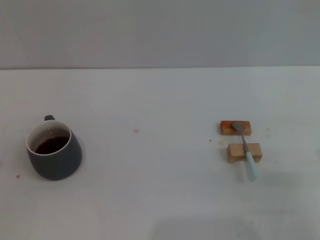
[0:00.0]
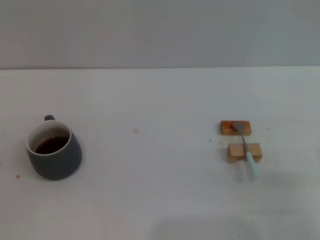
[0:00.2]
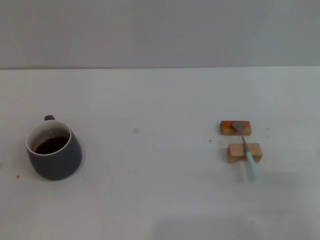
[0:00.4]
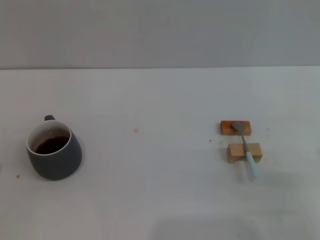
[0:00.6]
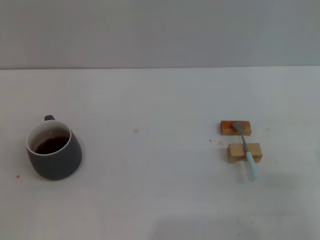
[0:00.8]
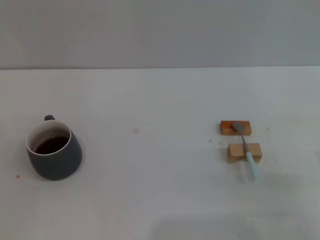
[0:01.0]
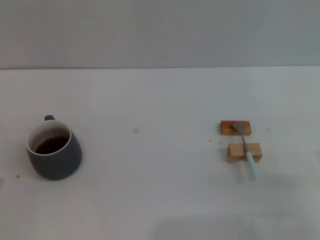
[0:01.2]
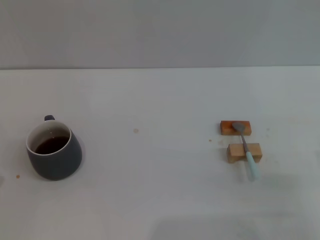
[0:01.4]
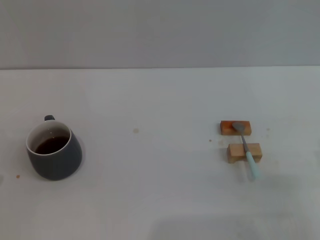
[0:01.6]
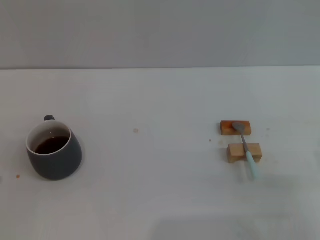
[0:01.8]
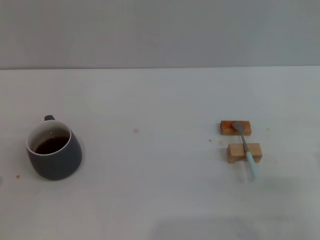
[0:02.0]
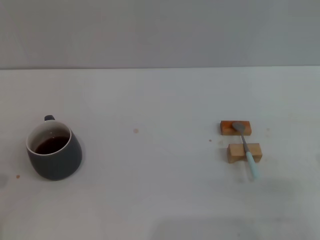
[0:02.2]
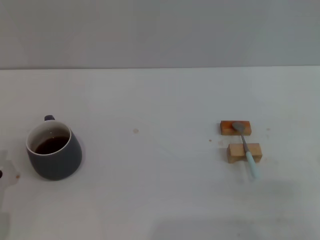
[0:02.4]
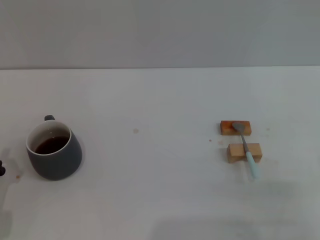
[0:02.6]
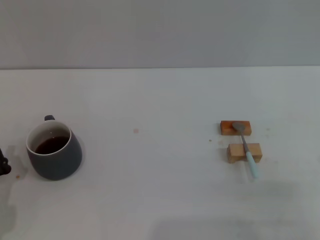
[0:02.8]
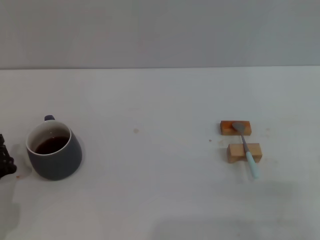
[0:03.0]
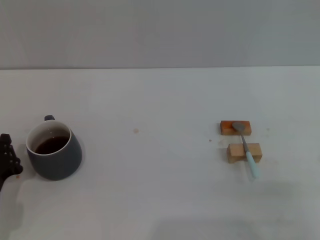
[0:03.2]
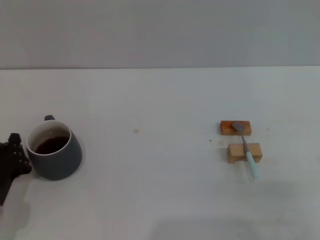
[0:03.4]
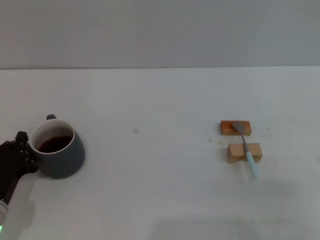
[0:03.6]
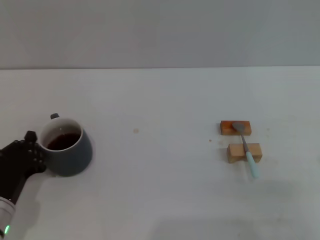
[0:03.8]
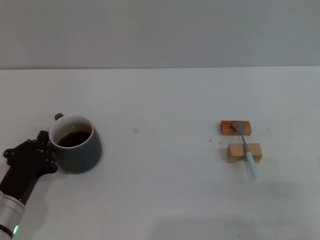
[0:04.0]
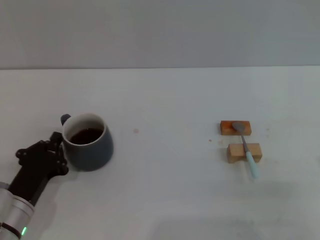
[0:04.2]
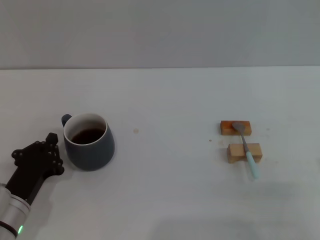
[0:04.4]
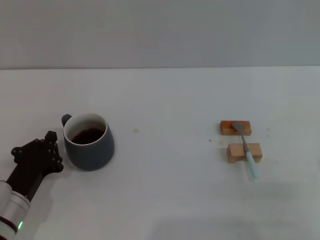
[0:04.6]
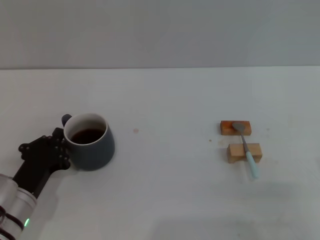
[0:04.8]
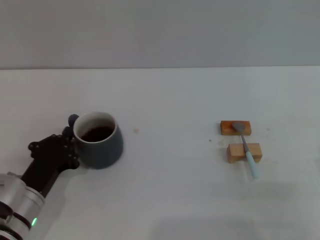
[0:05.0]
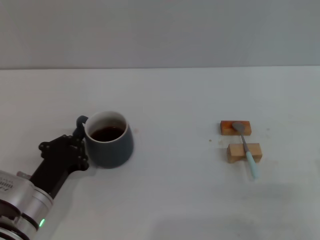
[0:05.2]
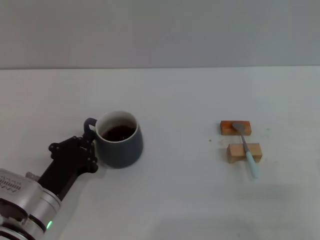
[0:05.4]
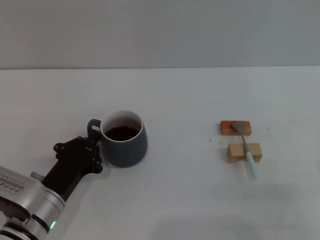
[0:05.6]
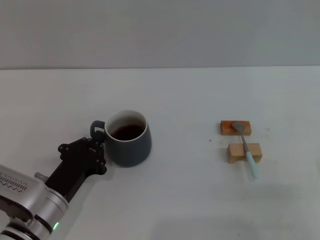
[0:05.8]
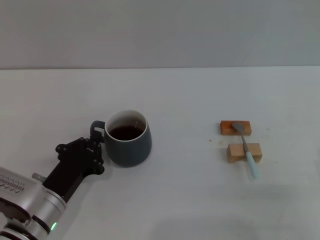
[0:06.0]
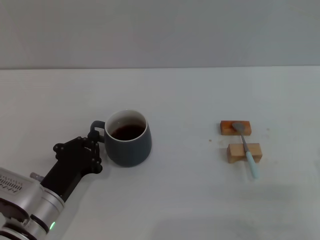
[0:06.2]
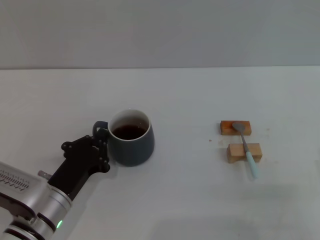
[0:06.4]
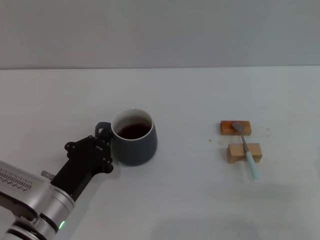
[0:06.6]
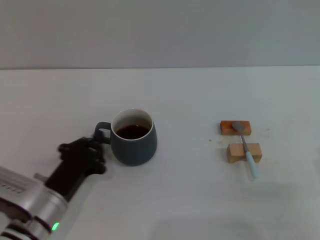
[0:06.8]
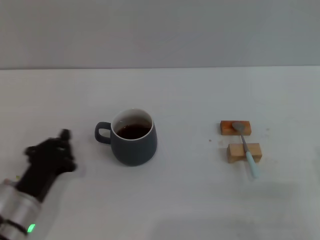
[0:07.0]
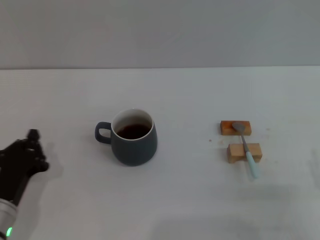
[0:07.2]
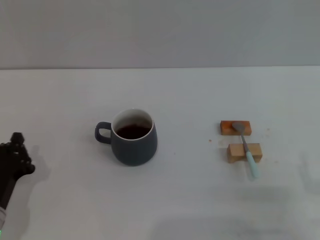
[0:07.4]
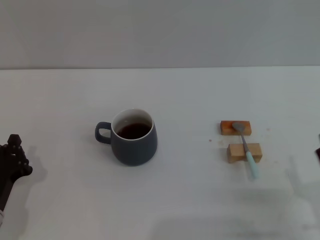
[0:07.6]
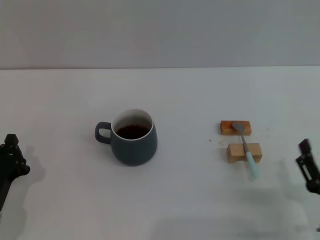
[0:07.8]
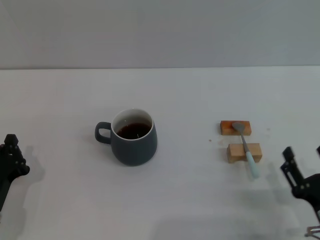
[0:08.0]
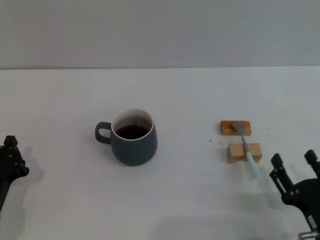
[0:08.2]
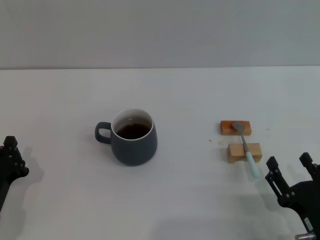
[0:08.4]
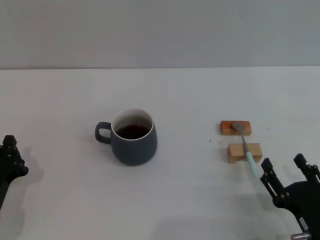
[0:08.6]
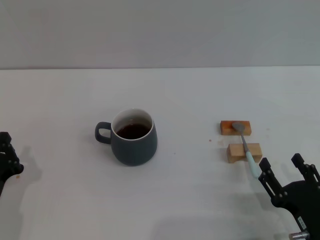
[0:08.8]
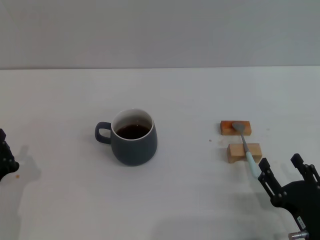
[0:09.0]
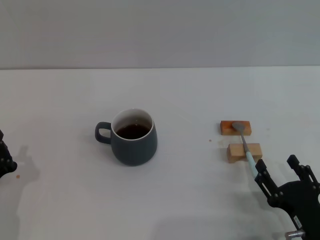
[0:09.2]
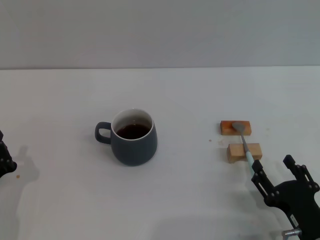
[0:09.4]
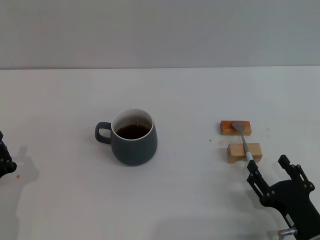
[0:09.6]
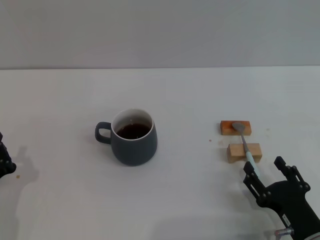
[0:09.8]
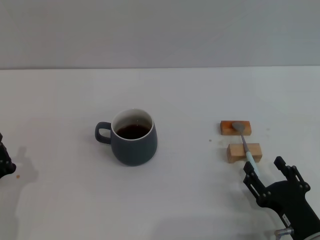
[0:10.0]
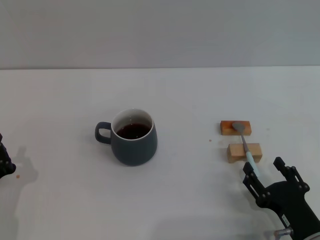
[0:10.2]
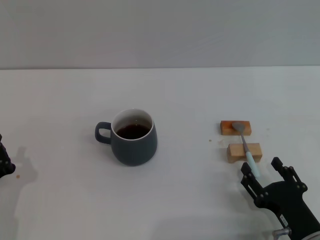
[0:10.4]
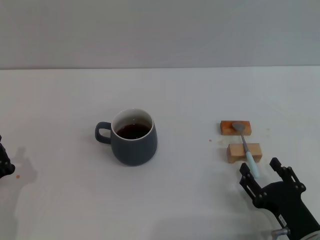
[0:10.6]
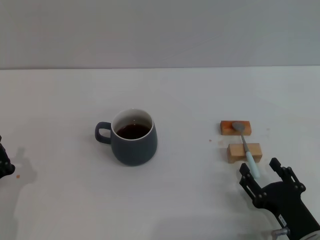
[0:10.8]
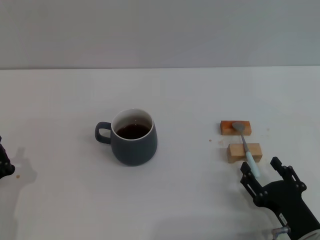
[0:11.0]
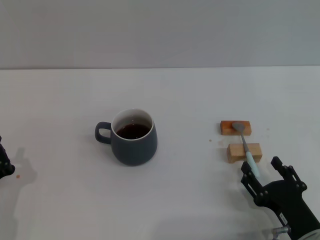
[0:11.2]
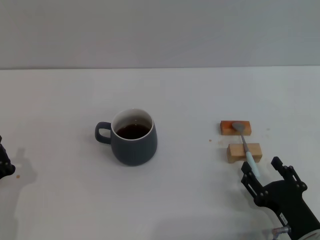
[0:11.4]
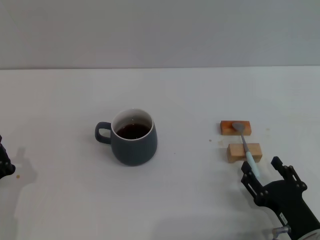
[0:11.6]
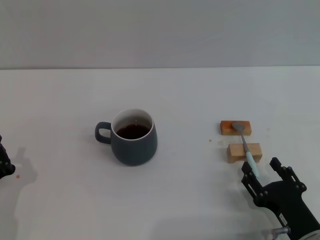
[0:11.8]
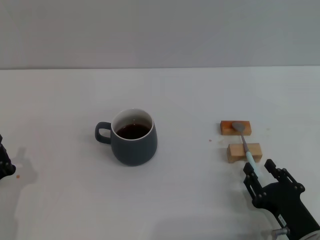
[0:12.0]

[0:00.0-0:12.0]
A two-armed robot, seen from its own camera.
Task of the whole recording: Move the grey cup to the center, lift the blue spoon, stir it three times in the cup, and put the spoon into the cup.
Step, 0:00.0 to 0:06.8: Move the cup with coffee to the center of view with the left gripper.
0:03.0 to 0:04.4: The grippers move only a little.
0:04.4 to 0:06.0: The grippers move only a little.
0:06.0 to 0:07.6: The left gripper heads to the left, covering roughly 5 cm.
0:07.6 to 0:09.0: The grippers move only a little.
0:09.0 to 0:10.4: The grippers stay close to where they were, moving slightly.
0:10.4 to 0:12.0: Neither gripper changes place.

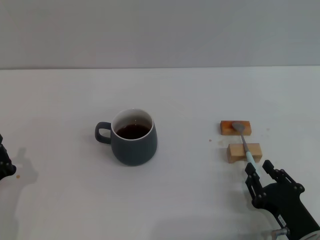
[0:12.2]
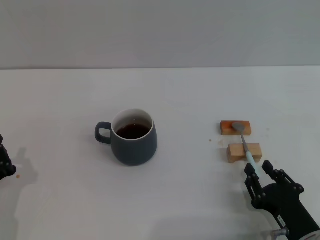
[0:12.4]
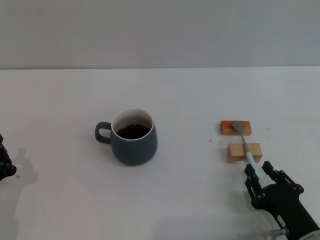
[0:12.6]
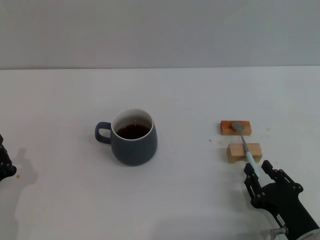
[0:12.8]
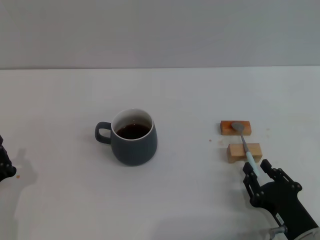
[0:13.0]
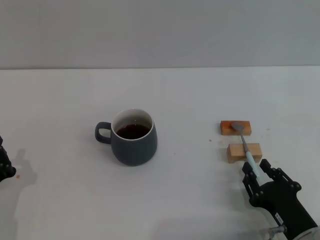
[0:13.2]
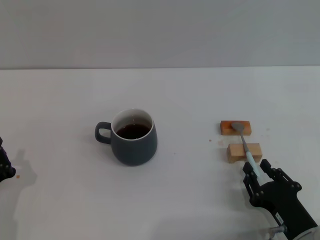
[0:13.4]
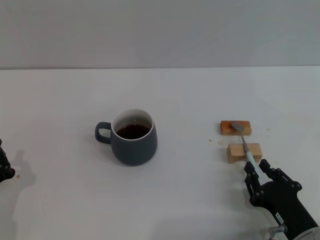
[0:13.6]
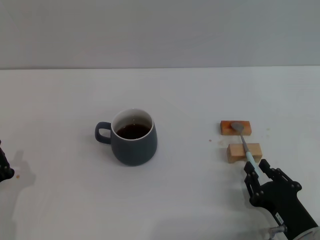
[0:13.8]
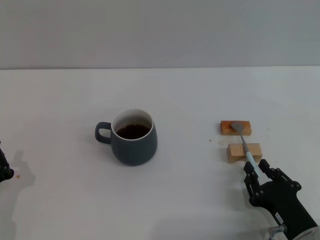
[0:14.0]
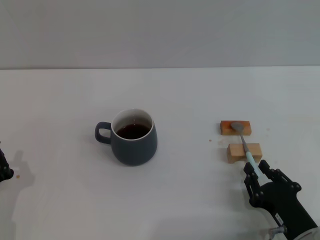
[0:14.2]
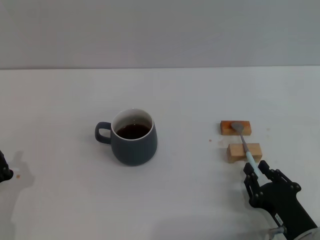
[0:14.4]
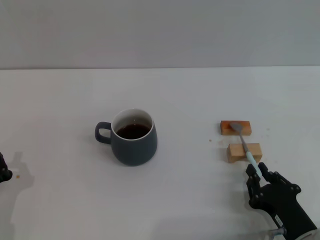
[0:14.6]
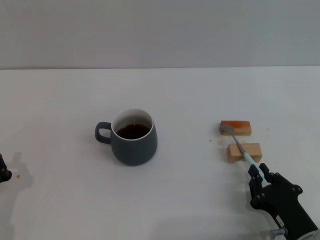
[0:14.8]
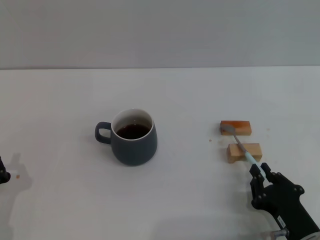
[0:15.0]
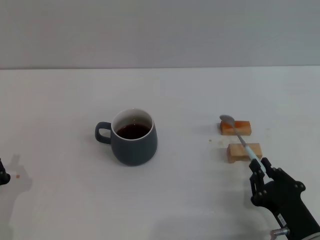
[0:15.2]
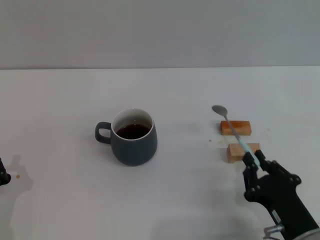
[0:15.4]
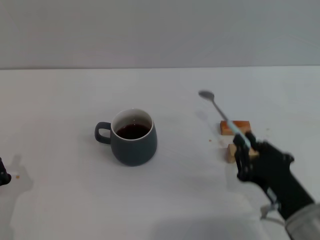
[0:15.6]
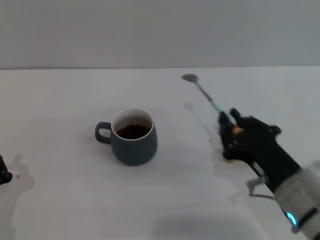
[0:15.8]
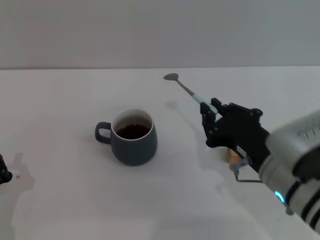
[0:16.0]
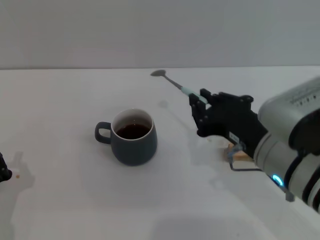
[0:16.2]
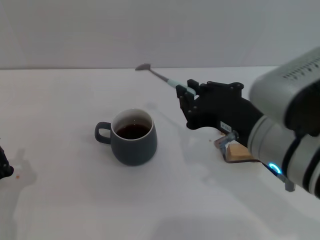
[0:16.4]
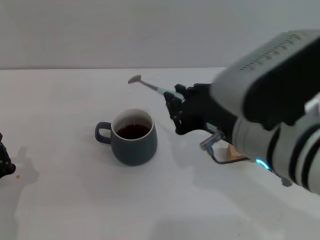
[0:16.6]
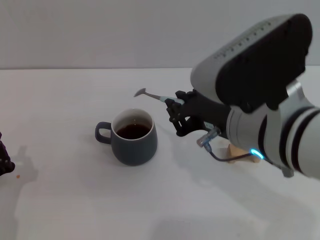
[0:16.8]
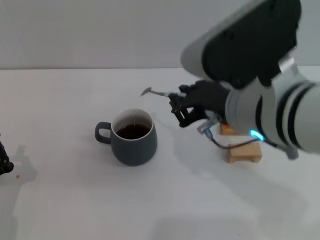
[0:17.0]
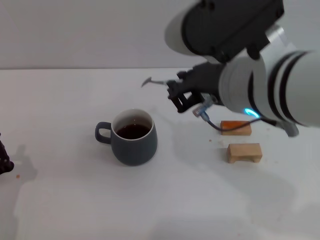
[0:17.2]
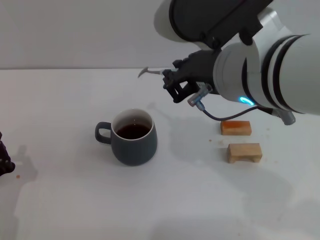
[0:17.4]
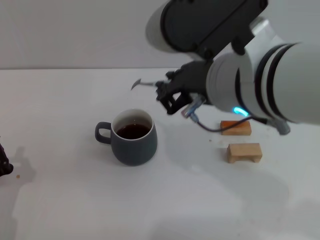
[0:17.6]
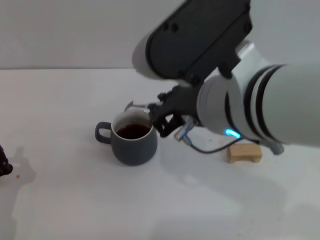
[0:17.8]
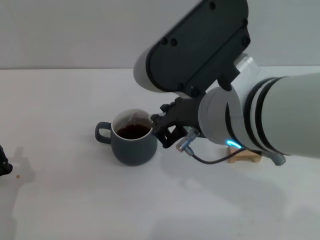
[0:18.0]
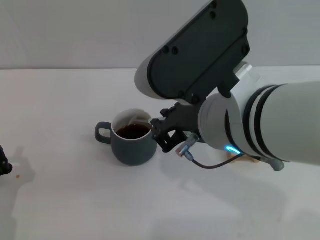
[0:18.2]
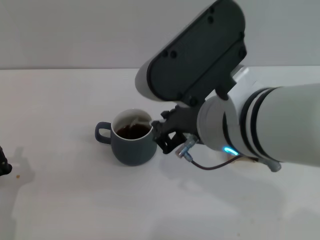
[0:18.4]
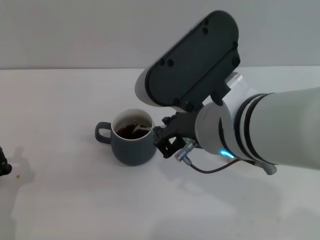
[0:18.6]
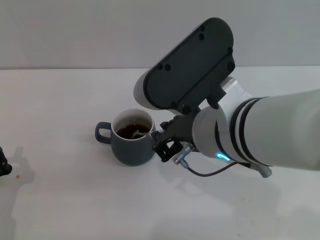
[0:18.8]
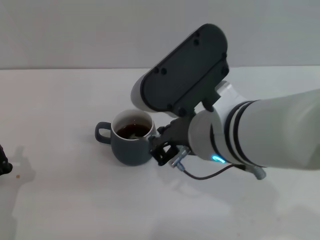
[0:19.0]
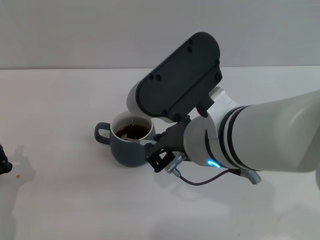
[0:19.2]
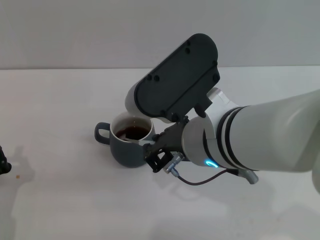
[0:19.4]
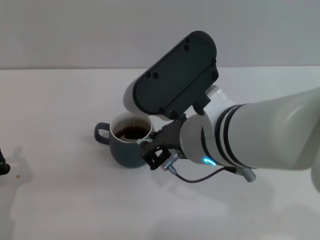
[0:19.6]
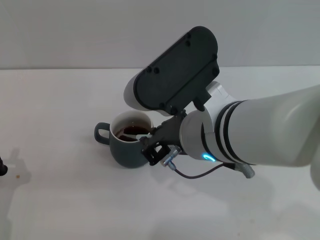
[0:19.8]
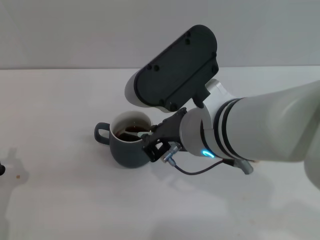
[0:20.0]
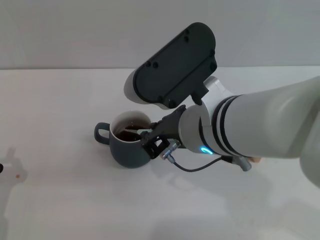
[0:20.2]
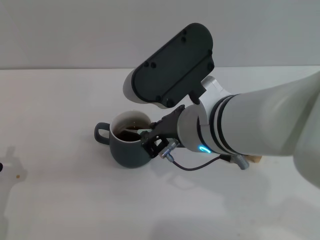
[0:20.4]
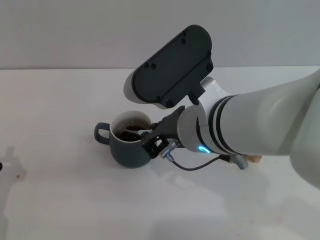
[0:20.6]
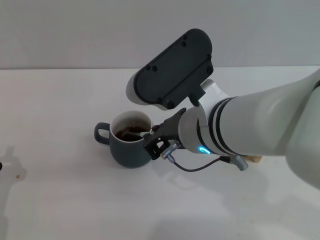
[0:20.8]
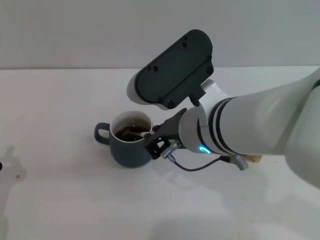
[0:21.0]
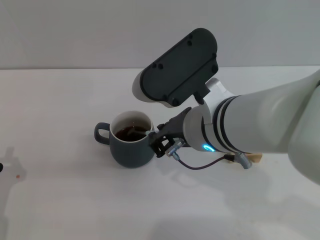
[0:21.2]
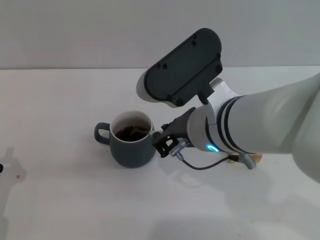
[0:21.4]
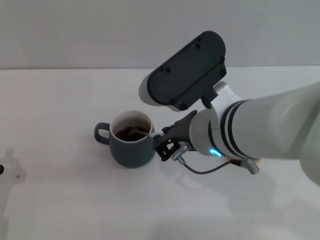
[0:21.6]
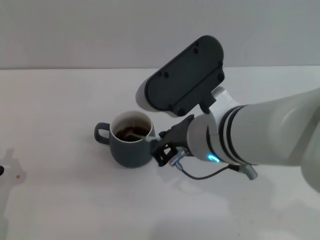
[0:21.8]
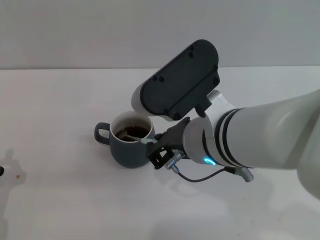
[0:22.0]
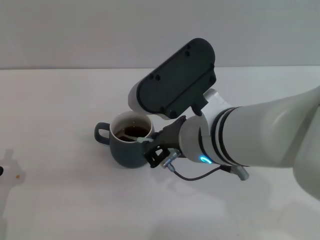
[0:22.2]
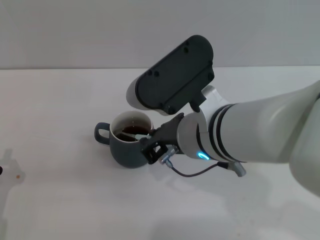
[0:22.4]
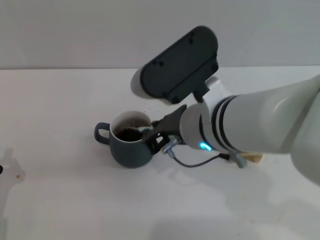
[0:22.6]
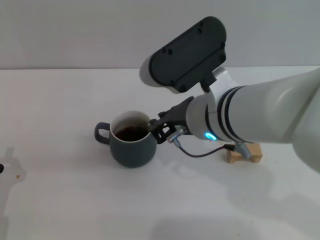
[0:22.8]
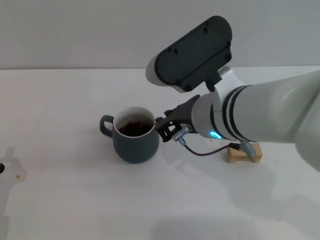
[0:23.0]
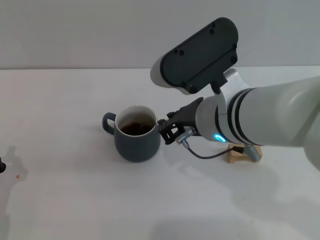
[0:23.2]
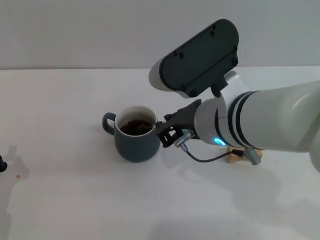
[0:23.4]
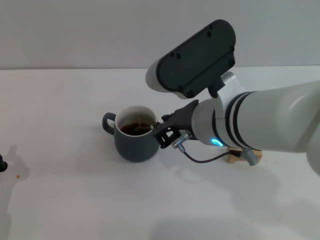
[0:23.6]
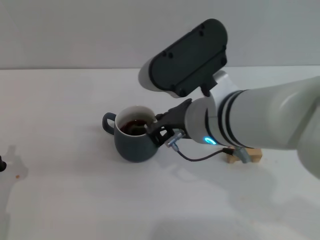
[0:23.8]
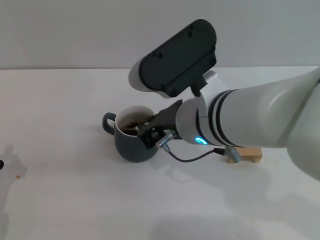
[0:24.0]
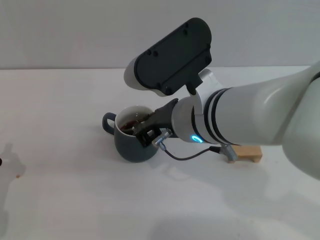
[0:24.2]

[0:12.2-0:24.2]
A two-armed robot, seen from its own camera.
Task of the whole recording: Move the grey cup to the center, lift the blue spoon, stir it three times in the cup, and put the spoon into the cup.
Step, 0:12.2 to 0:15.4: Pick up the spoon with the right gripper.
0:12.2 to 0:13.8: Both grippers stay put.
0:13.8 to 0:15.2: The grippers move only a little.
0:15.2 to 0:16.6: The right gripper moves upward and to the left, roughly 25 cm.
0:16.6 to 0:18.2: The right gripper changes place by some 5 cm.
0:18.2 to 0:19.8: The grippers make only small movements.
0:19.8 to 0:24.2: The grippers move only a little.
